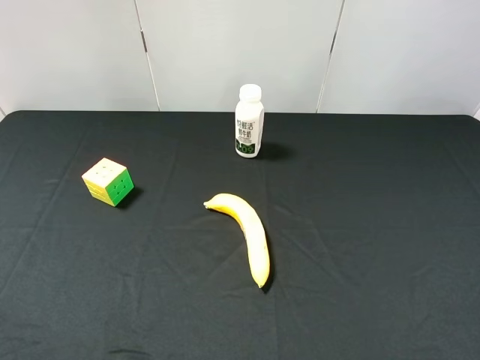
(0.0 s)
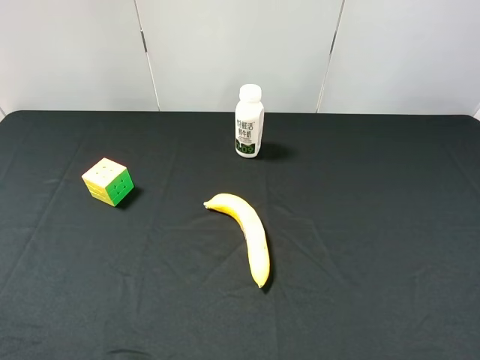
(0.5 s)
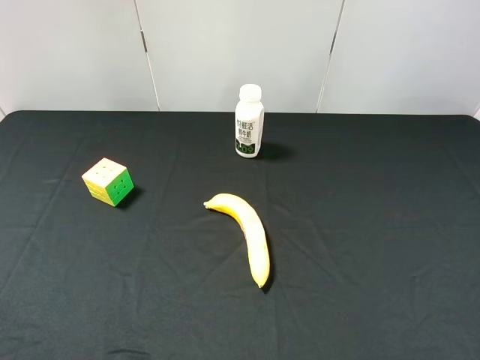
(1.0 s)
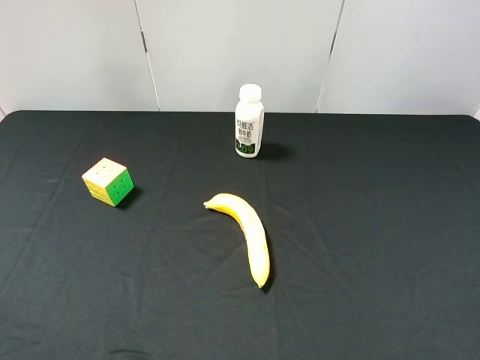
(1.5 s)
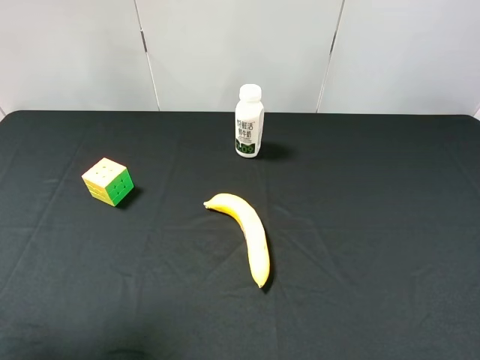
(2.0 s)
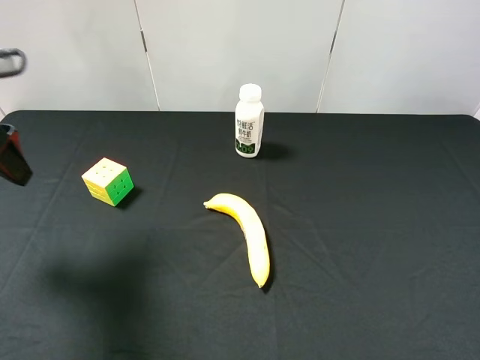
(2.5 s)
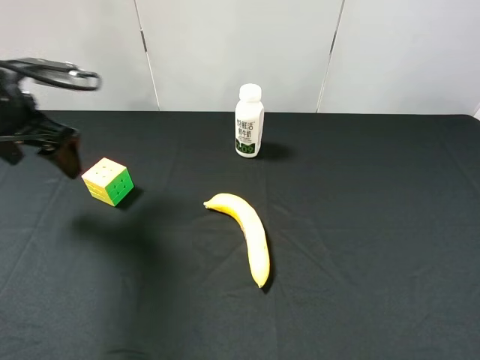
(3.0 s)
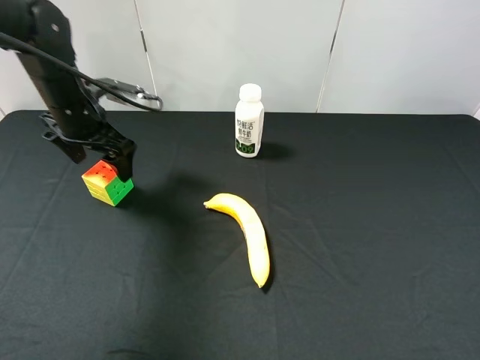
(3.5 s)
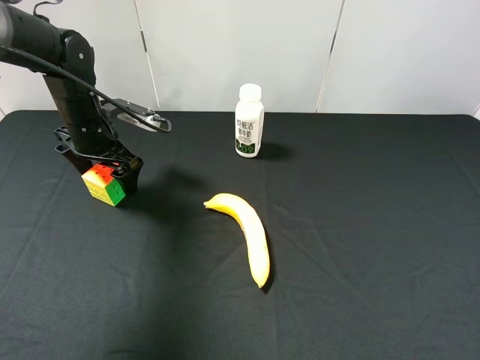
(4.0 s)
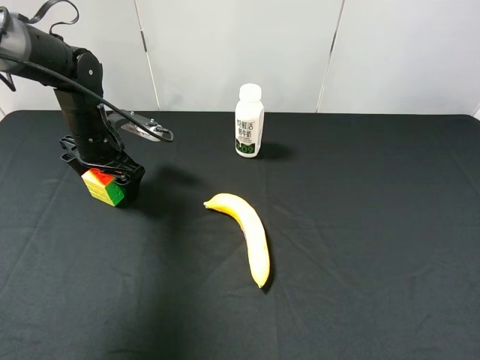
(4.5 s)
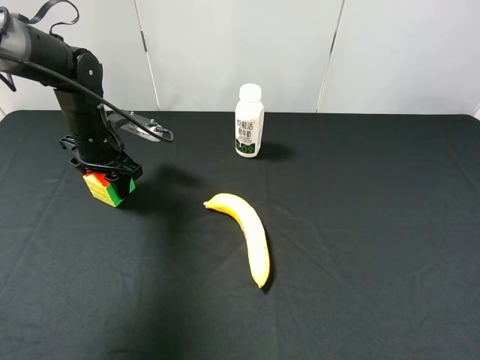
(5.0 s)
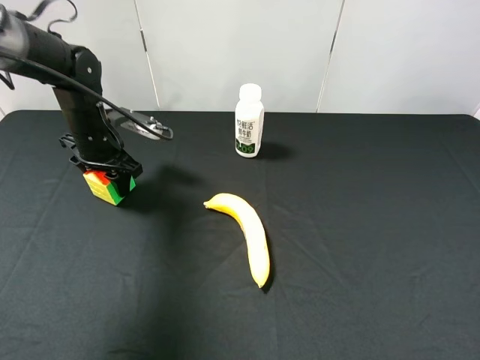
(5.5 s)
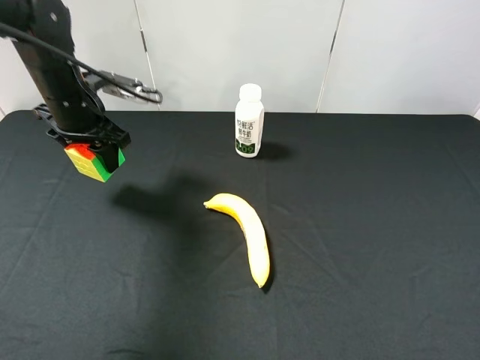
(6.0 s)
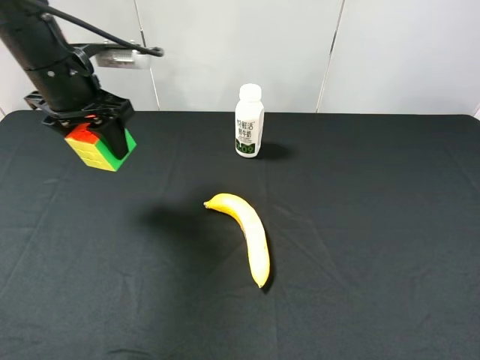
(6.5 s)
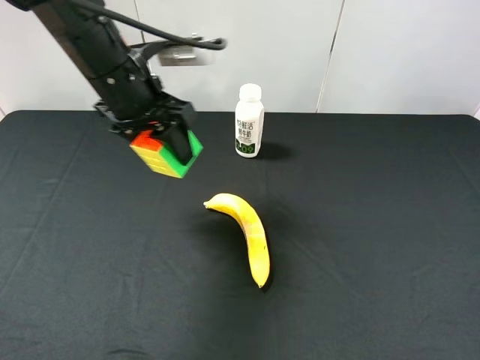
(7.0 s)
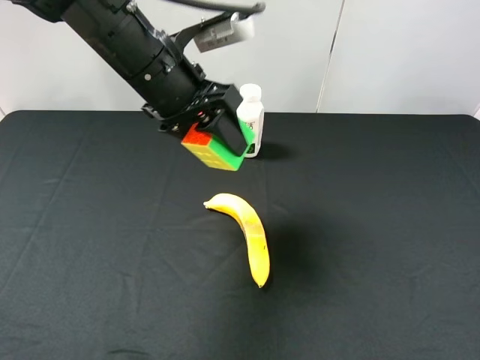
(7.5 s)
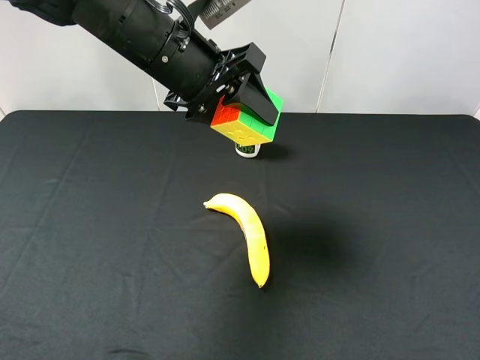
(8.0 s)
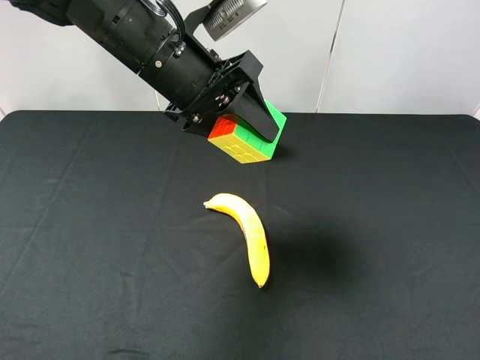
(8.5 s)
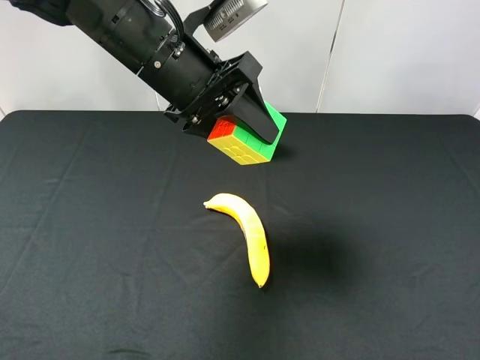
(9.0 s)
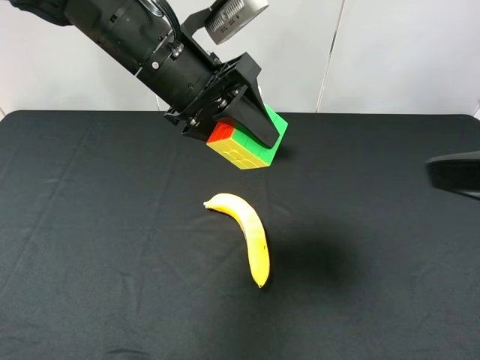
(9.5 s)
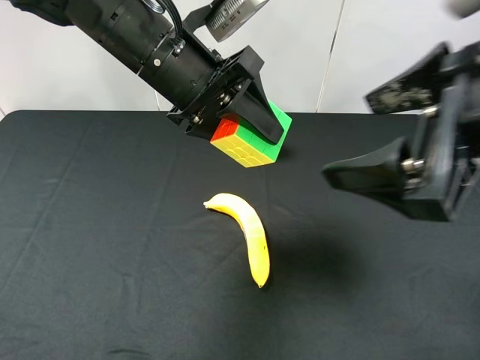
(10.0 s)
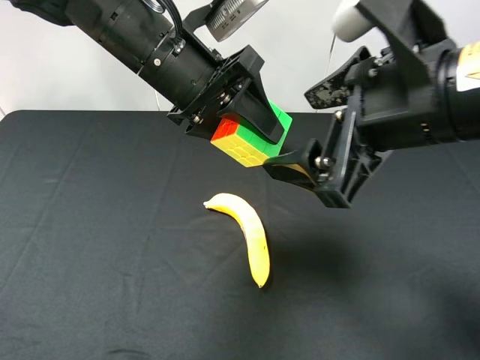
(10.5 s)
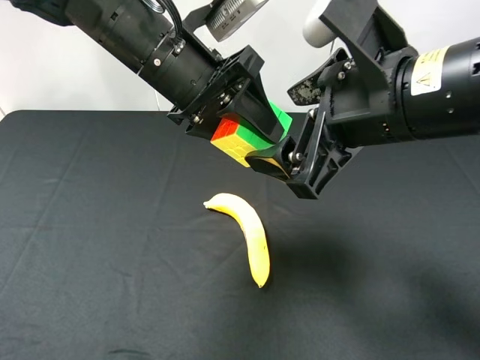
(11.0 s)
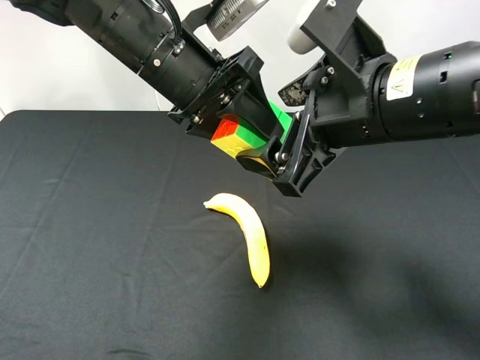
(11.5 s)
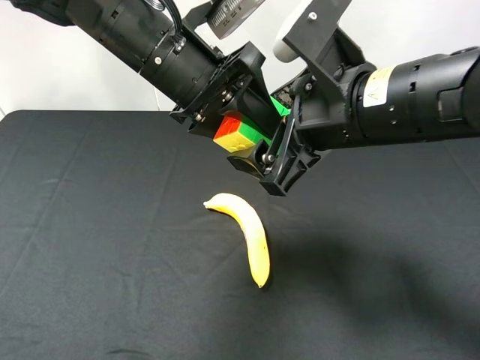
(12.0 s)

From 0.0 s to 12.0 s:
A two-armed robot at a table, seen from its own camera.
Task of the whole recording: use the left gripper to pick up the item and transfer it from the left gripper to the right gripper.
From 0.0 s to 2.0 s: The left gripper travels forward and upward by roughly 15 cm.
From 2.0 s to 4.0 s: The left gripper goes about 35 cm forward, downward and to the right.
From 4.0 s to 6.0 s: The left gripper moves upward, some 5 cm, and closes.
From 6.0 s to 8.0 s: The left gripper goes approximately 15 cm to the right and upward.
From 8.0 s to 10.0 s: The right gripper goes roughly 20 cm forward and to the left.
From 10.0 s to 12.0 s: The right gripper shifts approximately 10 cm to the left, forward and downward.

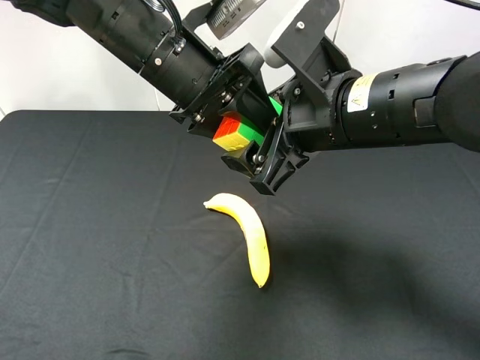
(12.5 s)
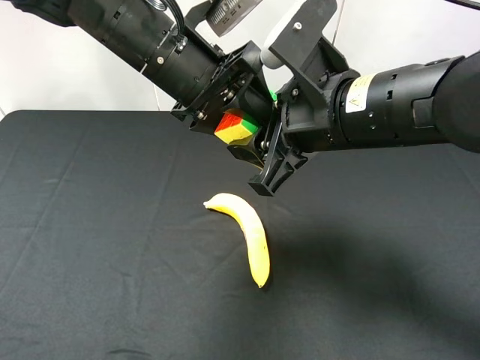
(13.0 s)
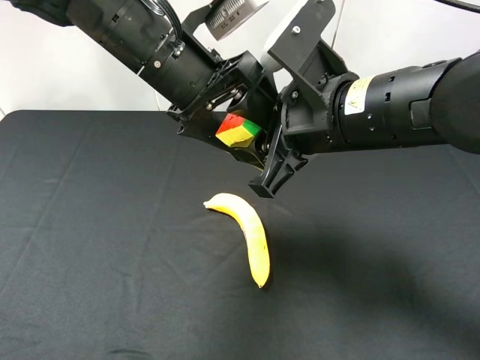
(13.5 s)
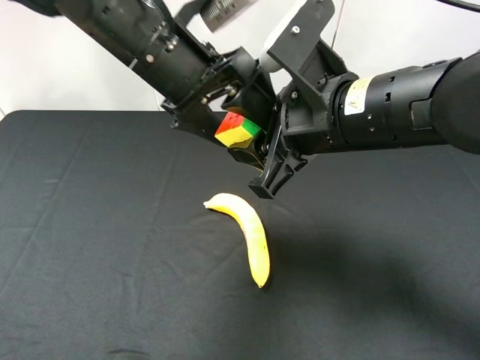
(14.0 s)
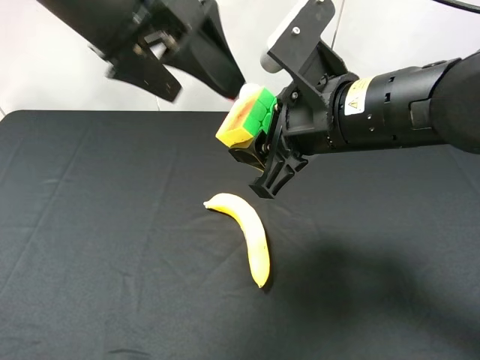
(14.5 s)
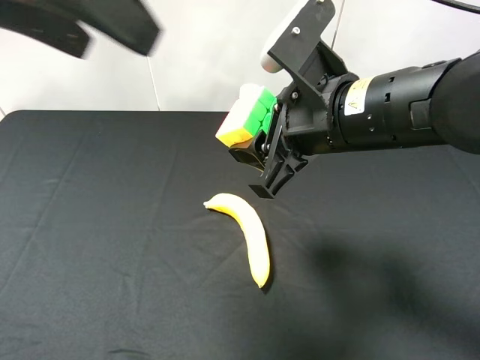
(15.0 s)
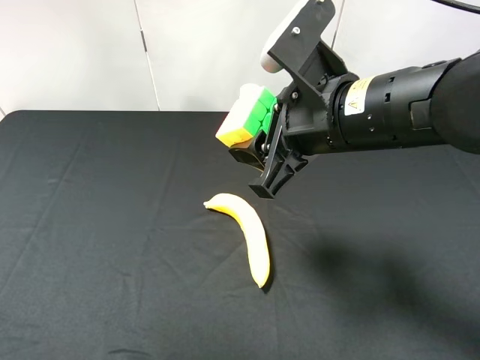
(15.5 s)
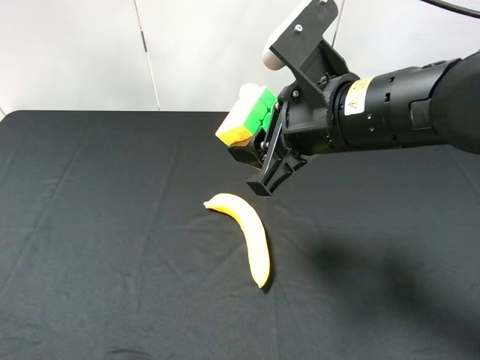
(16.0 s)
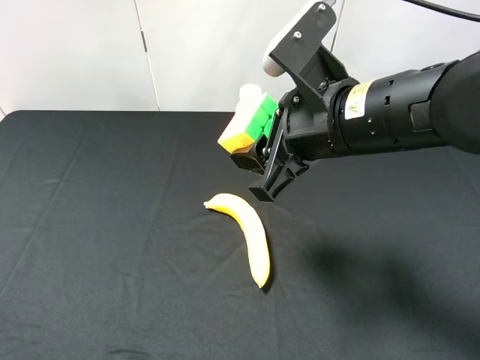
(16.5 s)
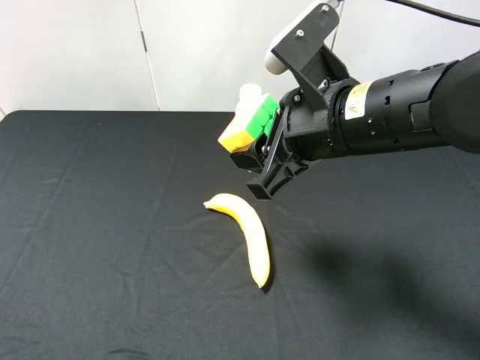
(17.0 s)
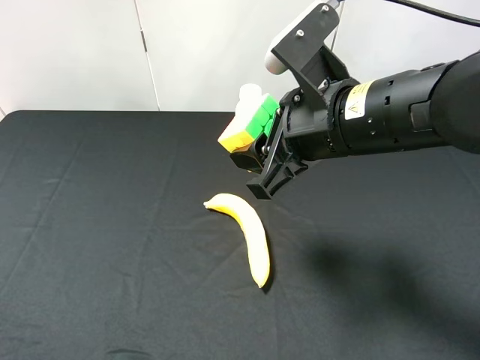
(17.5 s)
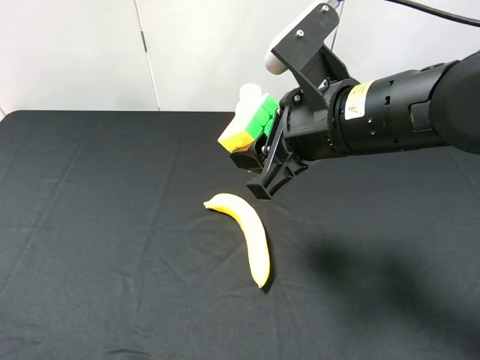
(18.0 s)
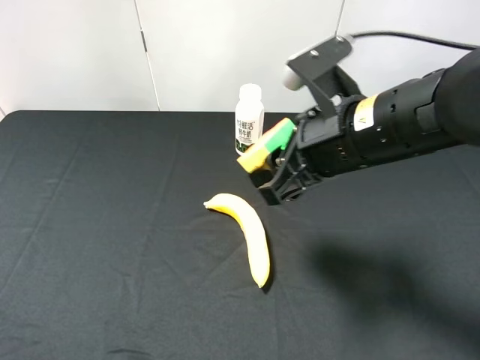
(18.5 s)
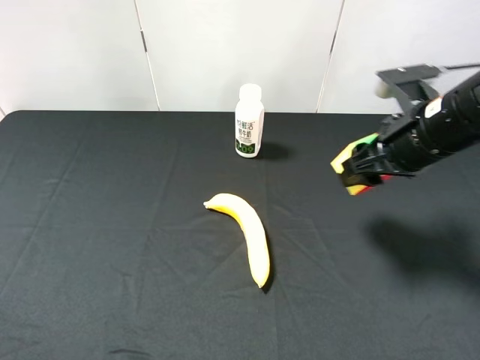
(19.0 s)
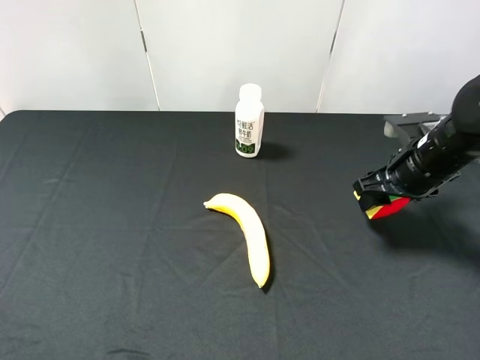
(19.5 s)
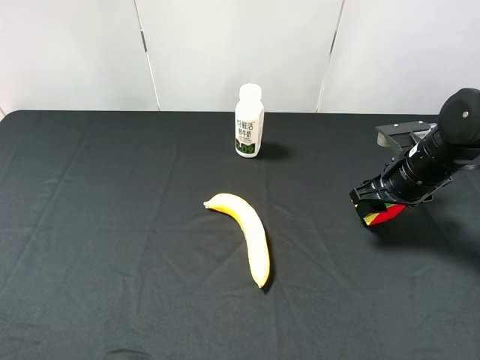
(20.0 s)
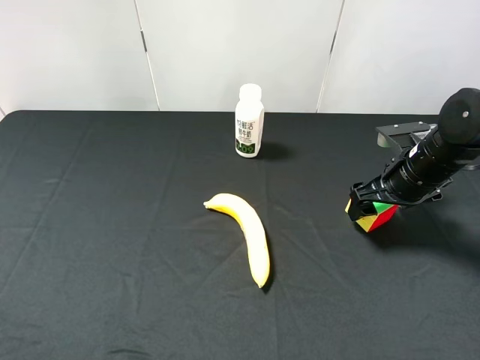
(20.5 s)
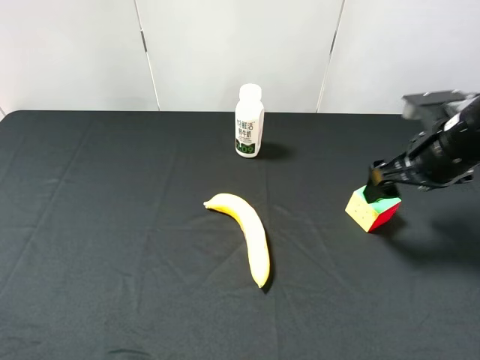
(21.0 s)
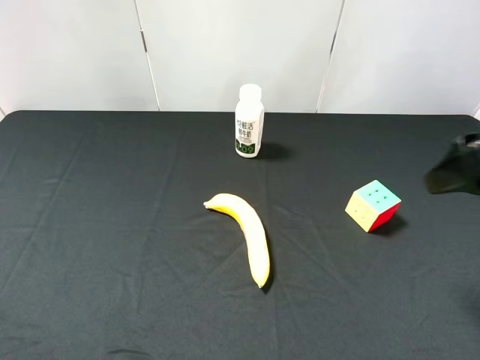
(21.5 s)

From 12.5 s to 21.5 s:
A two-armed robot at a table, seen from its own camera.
Task of the whole recording: use the left gripper to pick up the item and transfer it from the left gripper to the right gripper.
From 12.5 s to 14.5 s: The left gripper shifts roughly 10 cm upward and to the left, and opens. The right gripper closes.
From 14.5 s to 17.0 s: The left gripper shifts about 30 cm backward and to the left.
From 17.0 s to 19.5 s: The right gripper heads to the right, downward and forward, covering about 20 cm.
From 19.5 s to 21.5 s: The right gripper moves upward and backward, roughly 20 cm, and opens its fingers.
